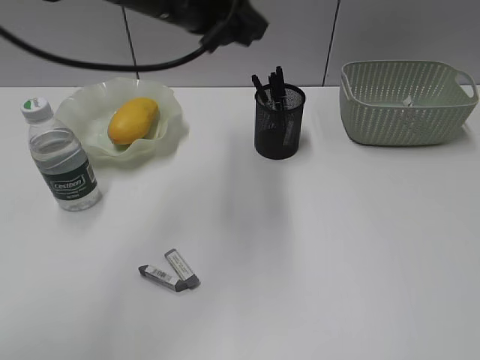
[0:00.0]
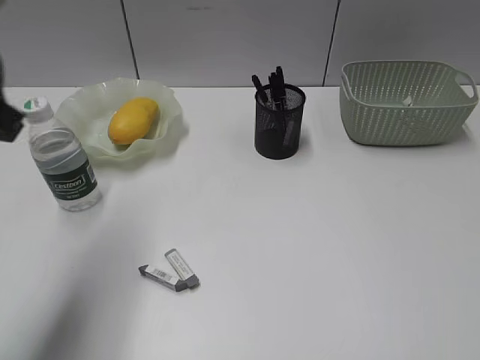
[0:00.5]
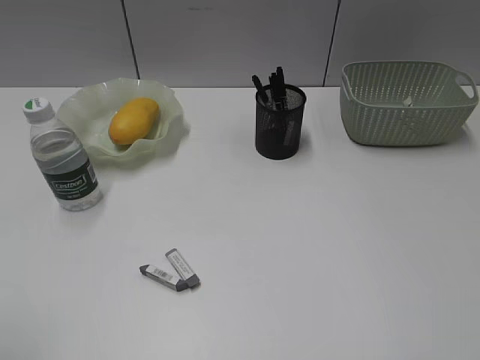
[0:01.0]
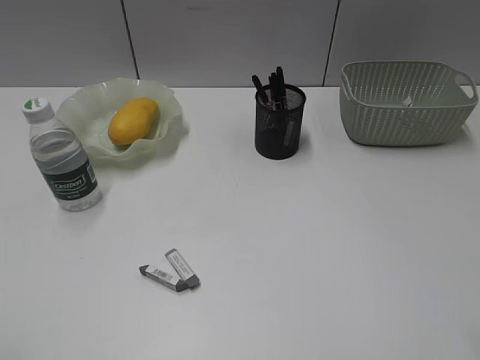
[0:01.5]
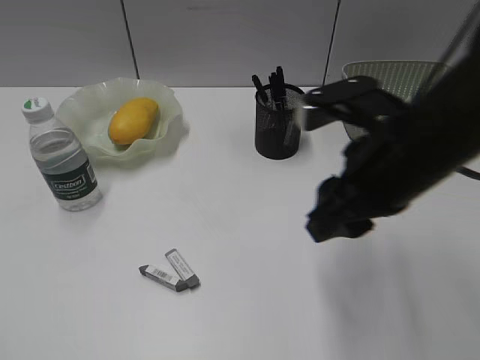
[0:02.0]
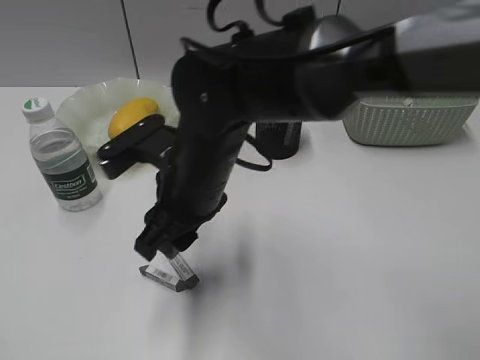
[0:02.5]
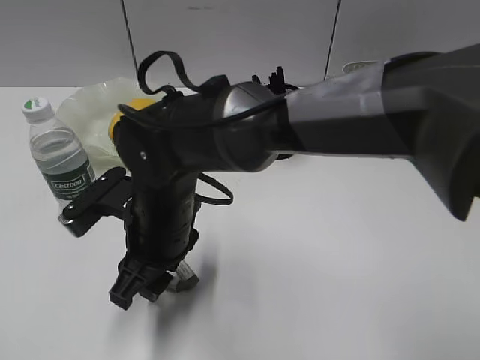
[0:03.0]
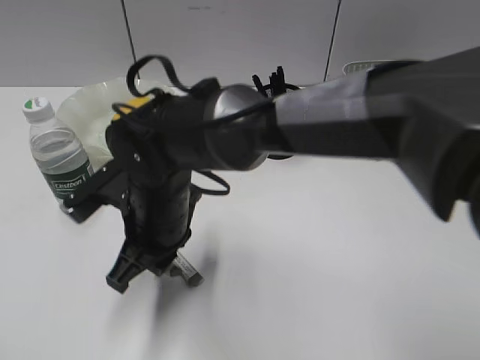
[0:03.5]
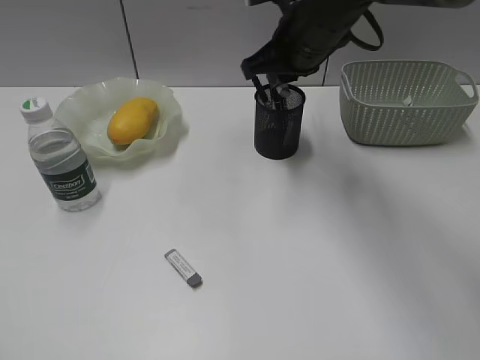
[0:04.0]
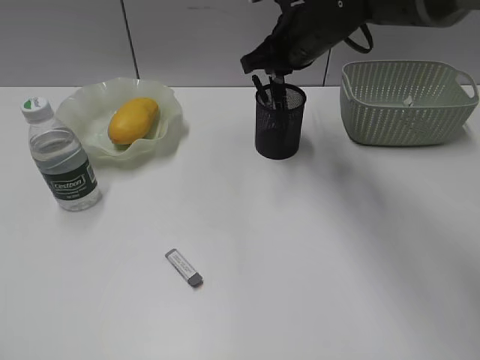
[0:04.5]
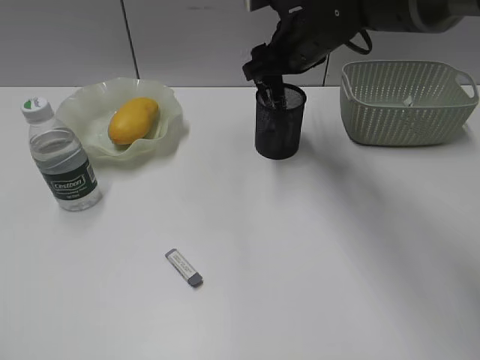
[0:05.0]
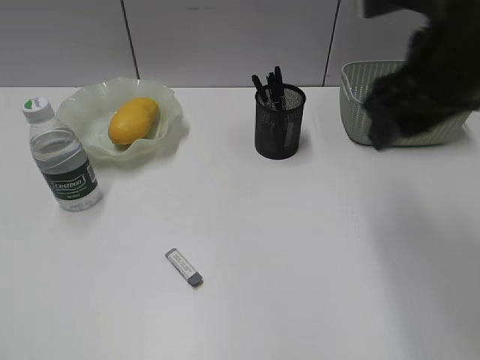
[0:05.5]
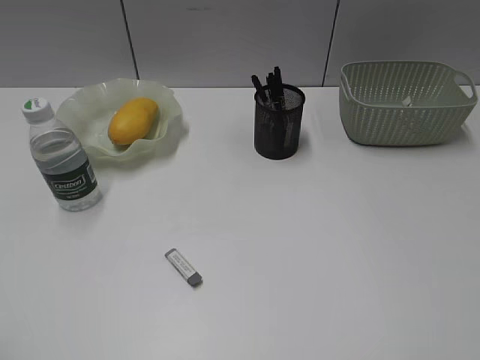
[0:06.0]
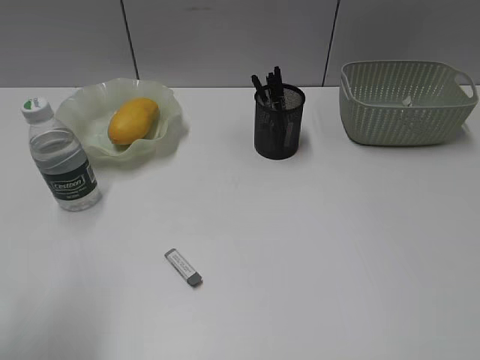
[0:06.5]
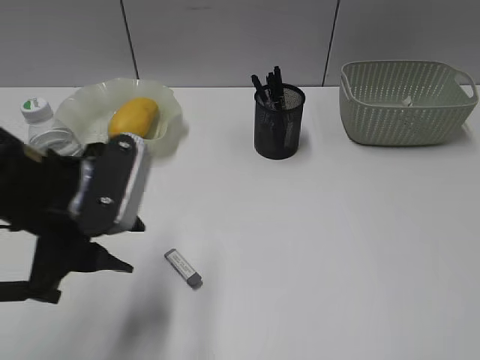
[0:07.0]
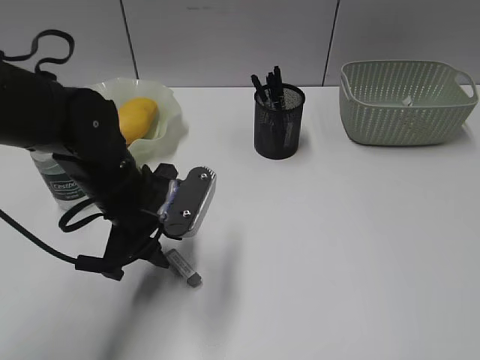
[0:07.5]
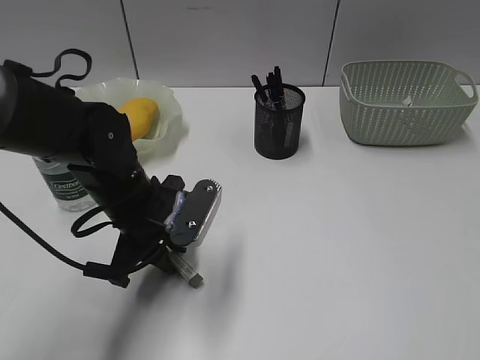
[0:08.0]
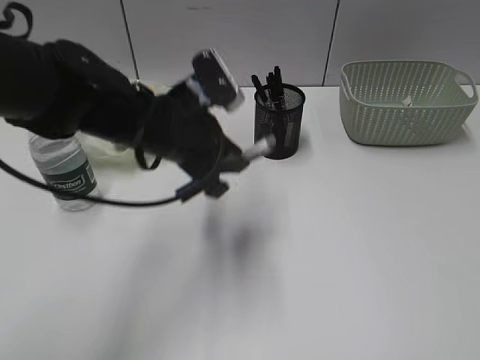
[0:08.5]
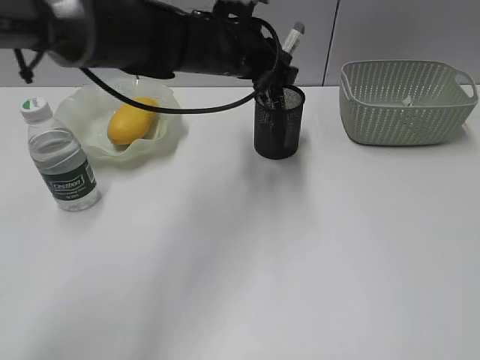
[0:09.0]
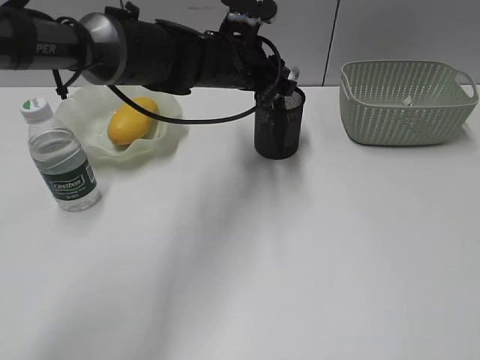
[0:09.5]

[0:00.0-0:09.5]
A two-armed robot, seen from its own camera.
Step, 0:00.0 to 0:03.5: Grasp the eraser with right gripper.
Step, 0:05.5 to 0:08.0: Grasp the eraser with left gripper.
0:00.0 to 0:02.0: The right gripper goes roughly 30 cm forward and to the left. Meanwhile the left gripper moves backward and to the left, some 50 cm.
0:02.0 to 0:04.0: The right gripper shifts about 20 cm forward, travels to the left and back again, some 20 cm each way, and closes up.
0:04.0 to 0:05.5: The right gripper heads backward, to the right and upward, covering about 15 cm, and opens up.
0:05.5 to 0:07.5: The right gripper travels backward and to the right by approximately 35 cm. Meanwhile the left gripper shifts approximately 40 cm forward, to the right and downward.
0:07.5 to 0:09.5: The left gripper heads forward and to the right, covering some 20 cm.

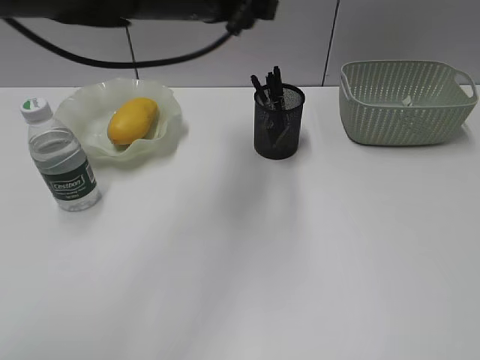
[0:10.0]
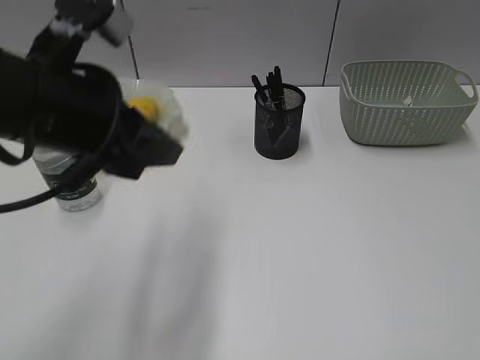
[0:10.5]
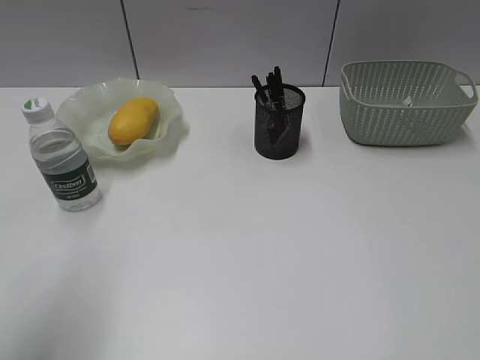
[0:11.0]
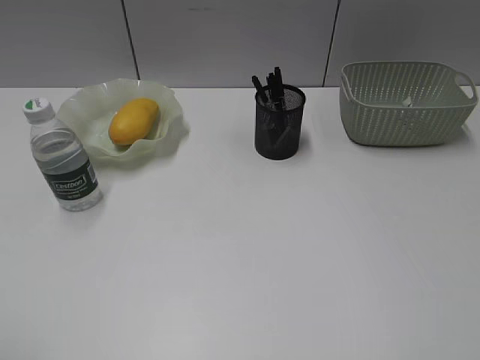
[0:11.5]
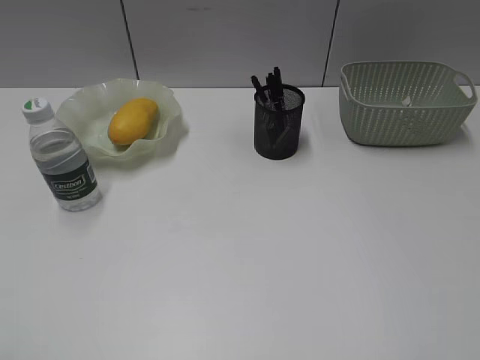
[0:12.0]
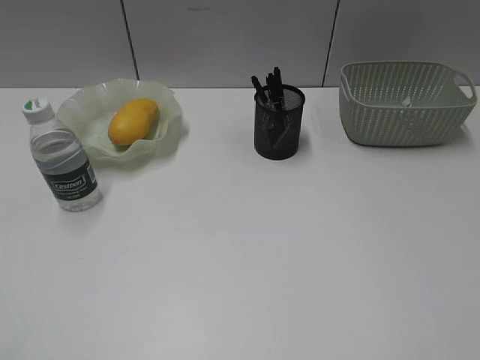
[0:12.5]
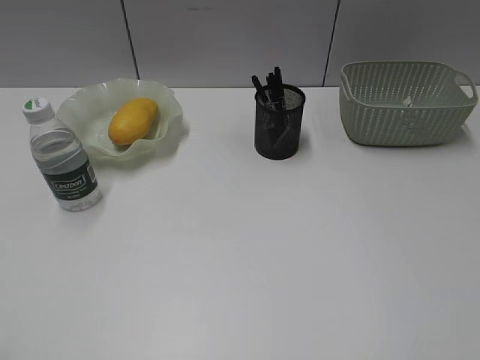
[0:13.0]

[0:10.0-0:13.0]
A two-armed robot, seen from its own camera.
0:10.0 to 0:11.5: The left gripper goes roughly 50 cm backward and to the left, and closes its fingers.
